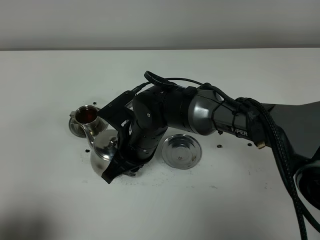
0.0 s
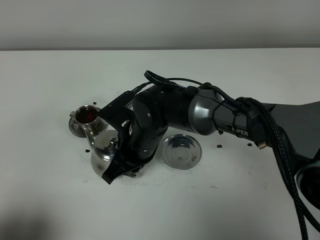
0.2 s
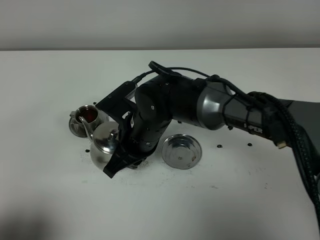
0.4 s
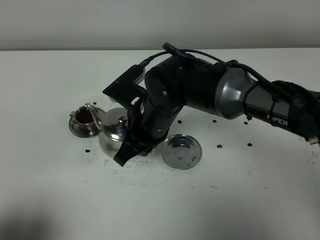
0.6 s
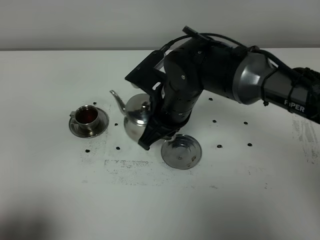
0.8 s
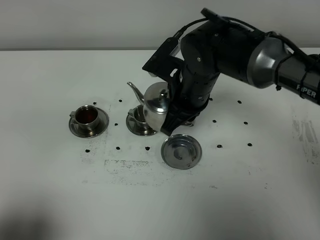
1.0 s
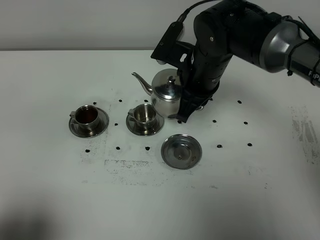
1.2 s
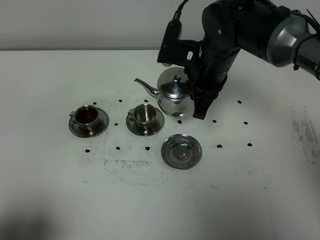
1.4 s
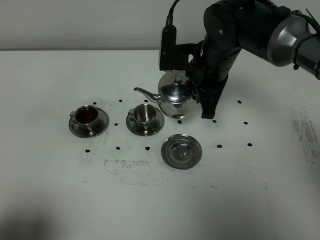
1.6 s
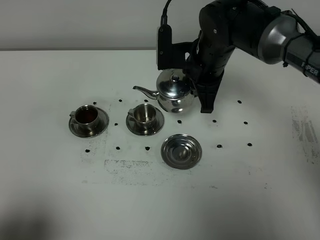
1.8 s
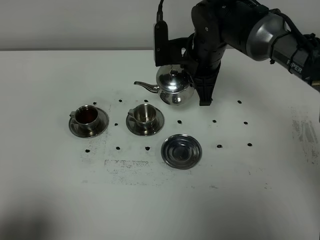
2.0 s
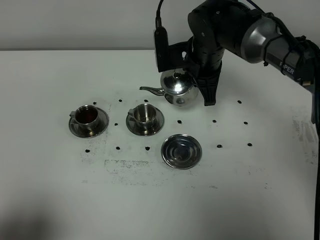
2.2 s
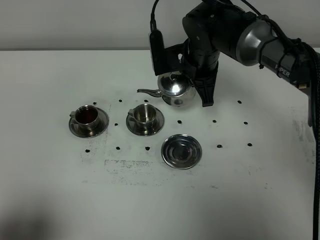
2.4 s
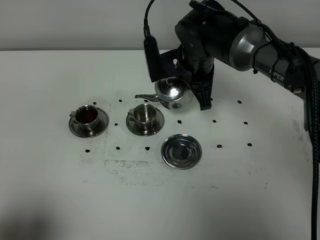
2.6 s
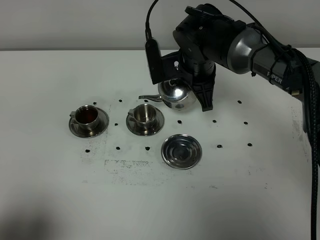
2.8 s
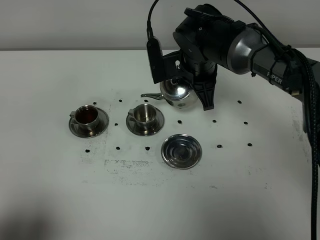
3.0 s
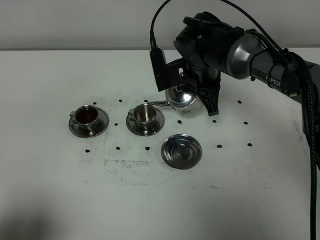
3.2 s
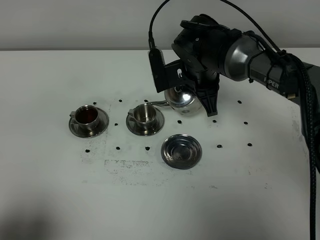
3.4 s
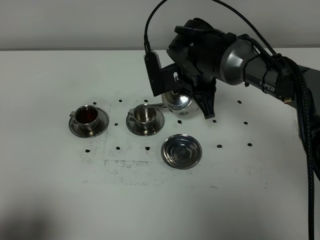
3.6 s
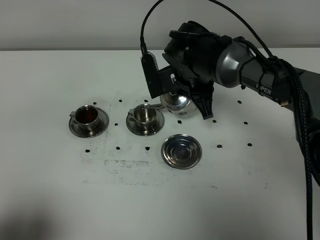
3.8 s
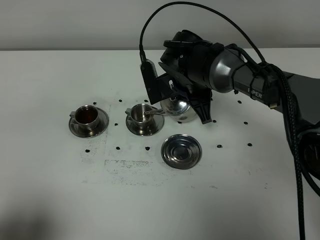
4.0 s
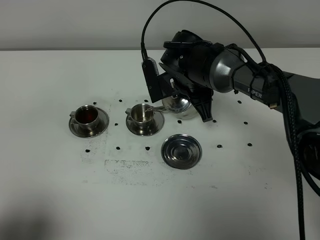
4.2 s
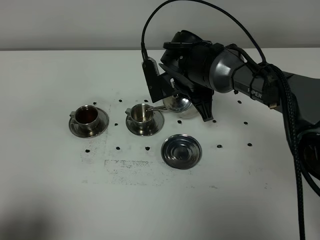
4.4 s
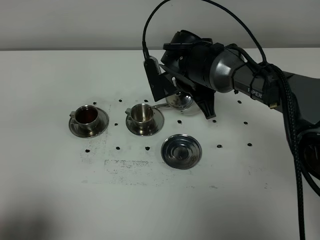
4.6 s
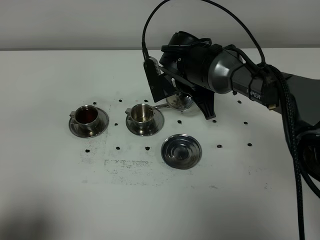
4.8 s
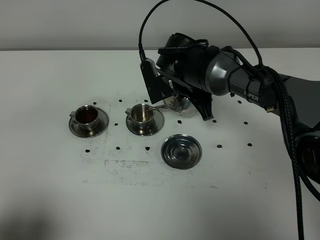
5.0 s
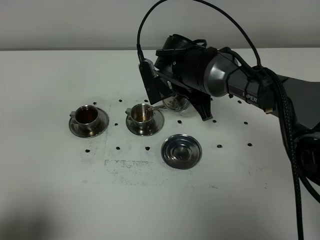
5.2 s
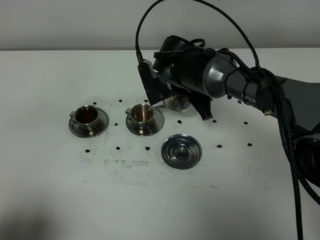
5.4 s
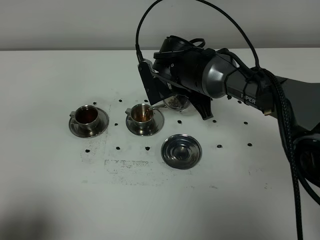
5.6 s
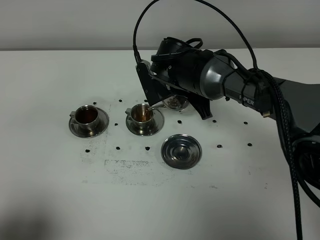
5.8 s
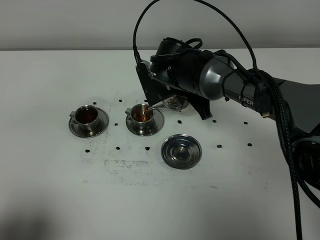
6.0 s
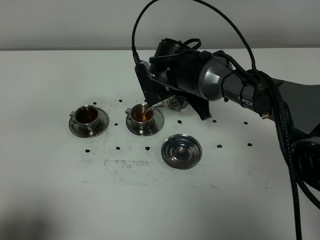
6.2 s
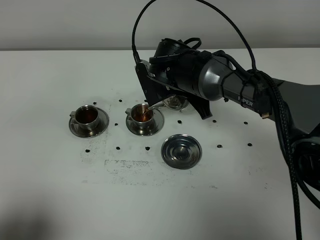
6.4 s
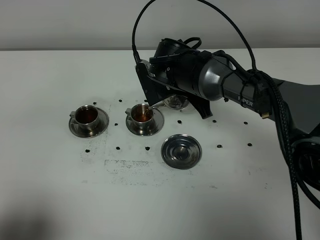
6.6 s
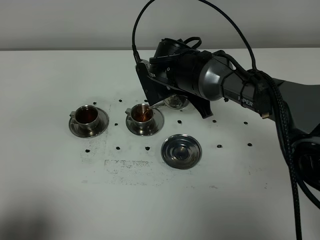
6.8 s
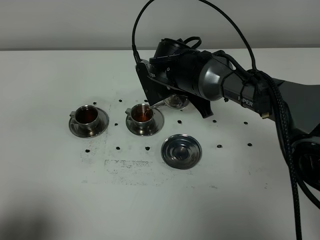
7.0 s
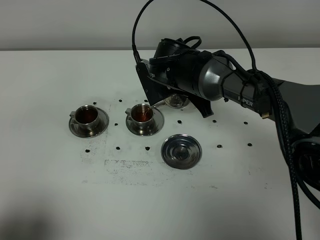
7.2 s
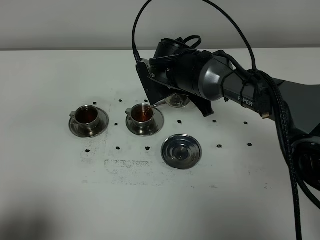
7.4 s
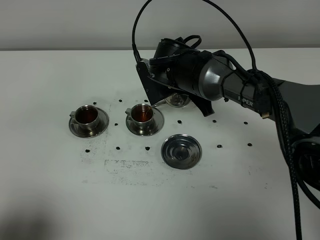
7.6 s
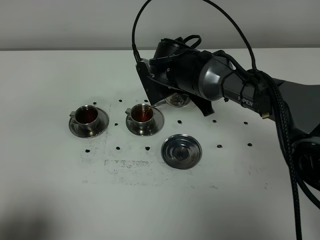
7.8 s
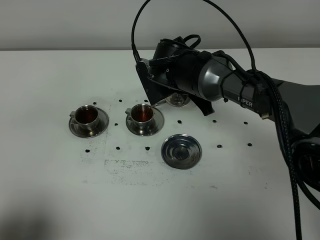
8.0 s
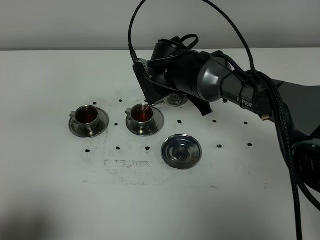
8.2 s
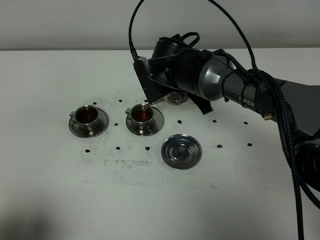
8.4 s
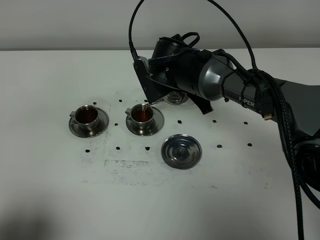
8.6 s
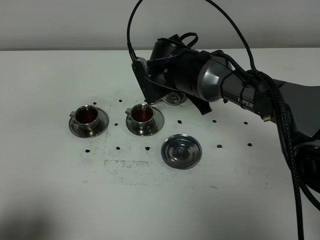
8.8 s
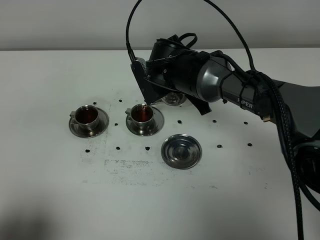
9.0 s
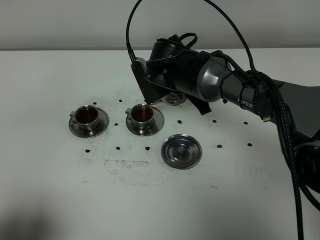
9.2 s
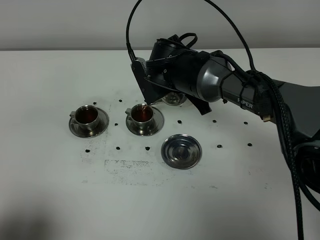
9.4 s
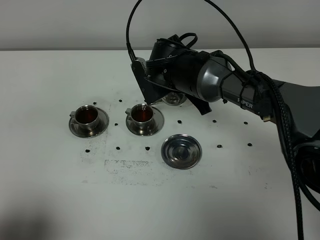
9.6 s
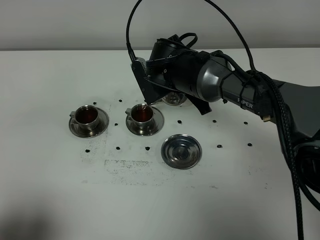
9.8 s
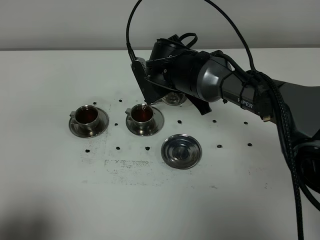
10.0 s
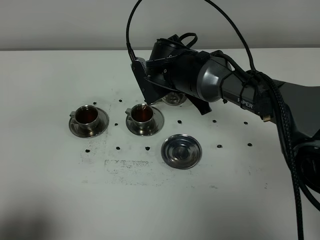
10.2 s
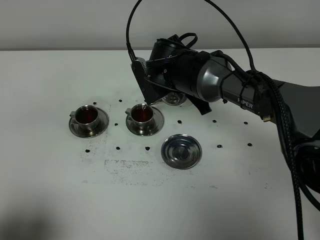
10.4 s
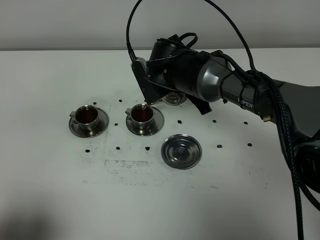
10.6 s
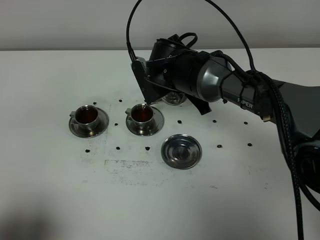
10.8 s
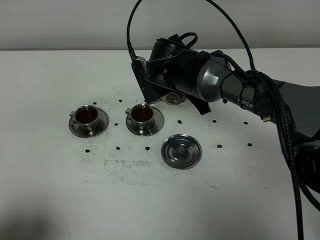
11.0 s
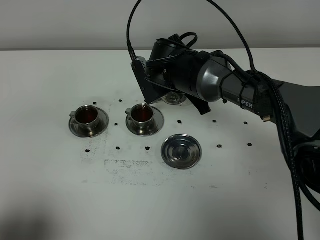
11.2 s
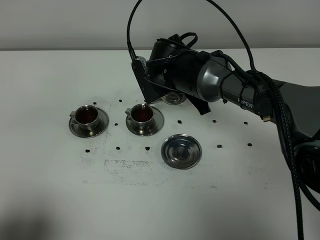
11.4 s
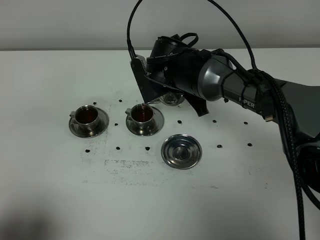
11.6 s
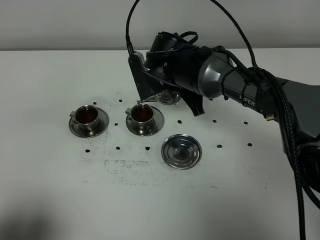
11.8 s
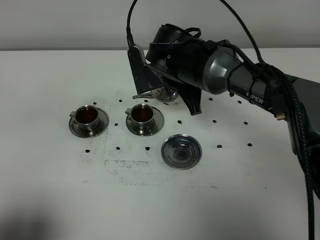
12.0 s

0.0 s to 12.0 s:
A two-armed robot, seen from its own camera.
Task of the whole recording: grasp the stainless steel teapot and pour the tea into the two stainless steel teacups one by one, put the stainless steel teapot back in its original place.
Step, 0.0 to 11.8 s: Pour tea into the teacup with the right gripper.
0.0 to 1.6 s: The right gripper travels to the right, upward and forward by approximately 20 cm.
3.0 to 6.0 s: There are only small adjustments of the grippers.
6.0 to 10.4 s: Both grippers stay put.
10.4 to 12.0 s: The grippers stay close to where they were, moving slightly.

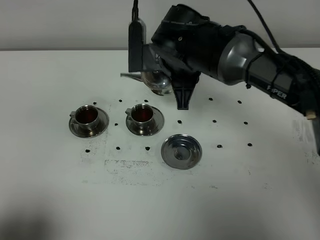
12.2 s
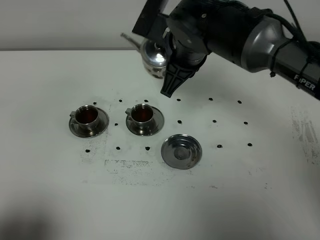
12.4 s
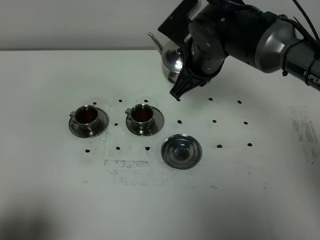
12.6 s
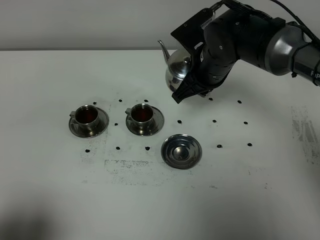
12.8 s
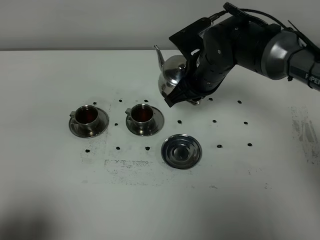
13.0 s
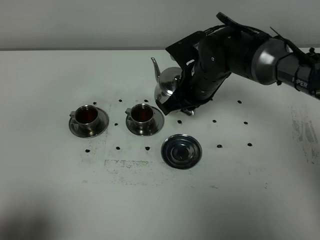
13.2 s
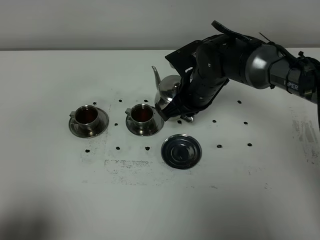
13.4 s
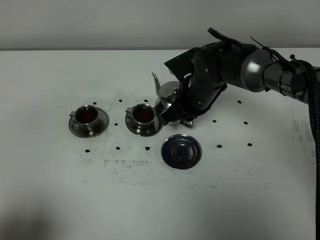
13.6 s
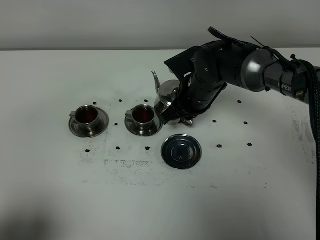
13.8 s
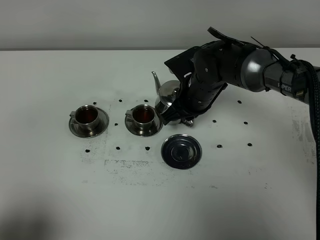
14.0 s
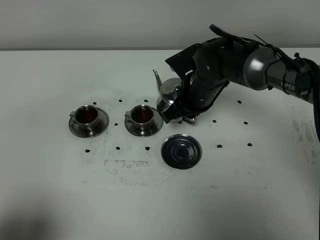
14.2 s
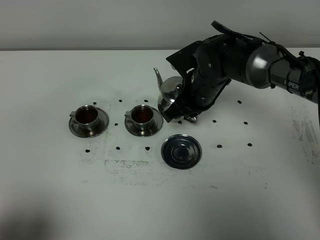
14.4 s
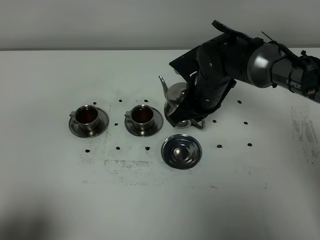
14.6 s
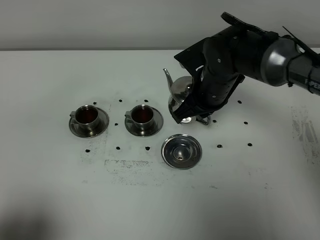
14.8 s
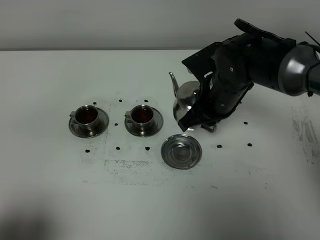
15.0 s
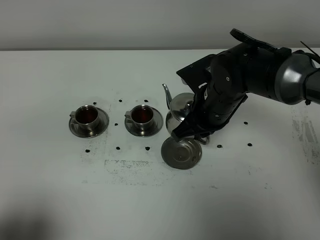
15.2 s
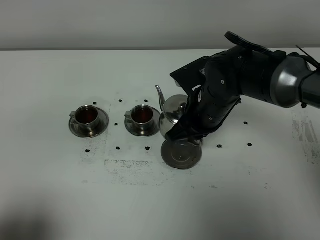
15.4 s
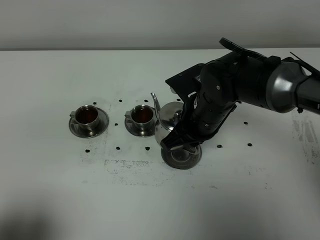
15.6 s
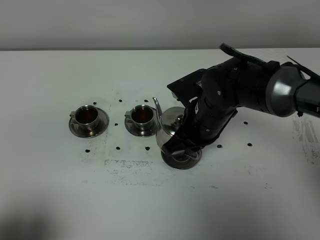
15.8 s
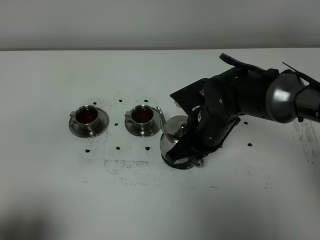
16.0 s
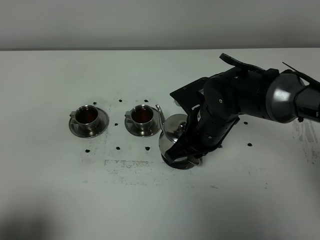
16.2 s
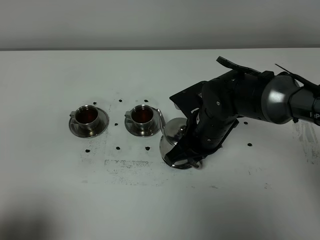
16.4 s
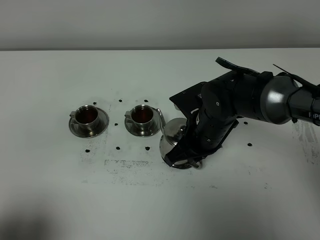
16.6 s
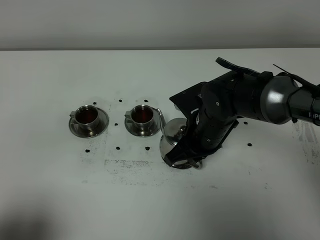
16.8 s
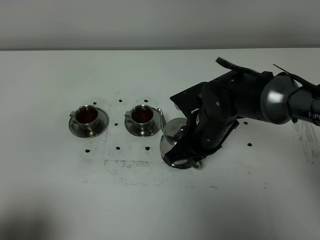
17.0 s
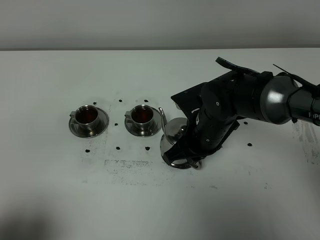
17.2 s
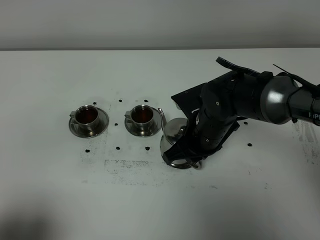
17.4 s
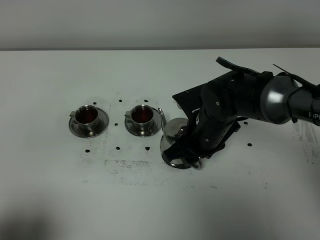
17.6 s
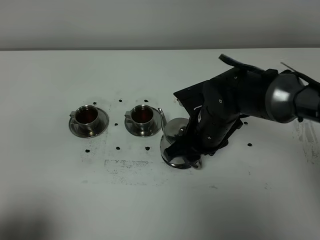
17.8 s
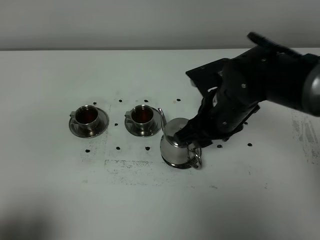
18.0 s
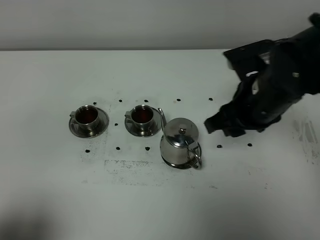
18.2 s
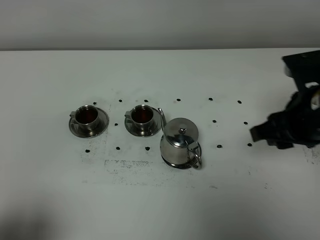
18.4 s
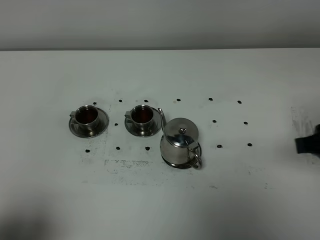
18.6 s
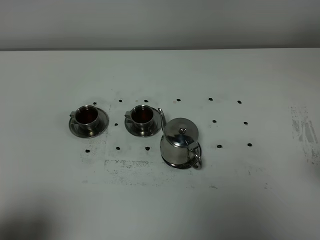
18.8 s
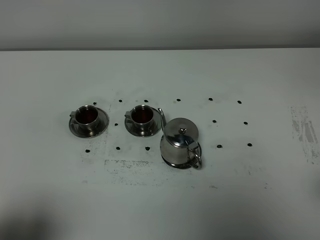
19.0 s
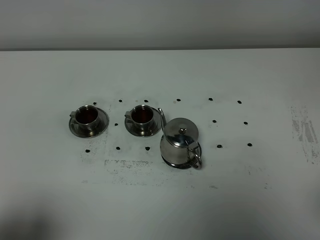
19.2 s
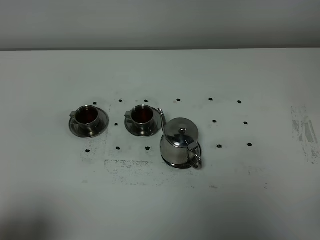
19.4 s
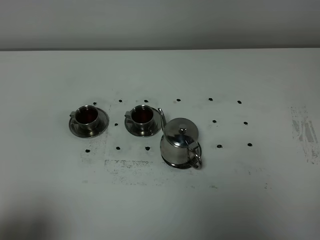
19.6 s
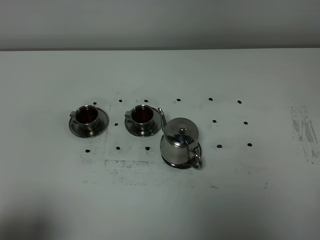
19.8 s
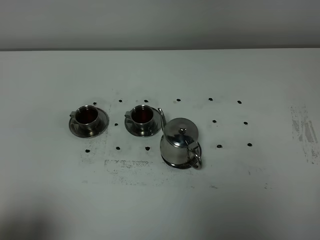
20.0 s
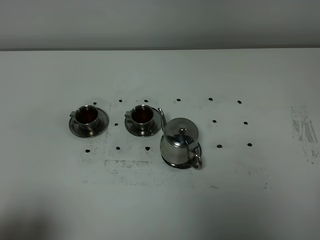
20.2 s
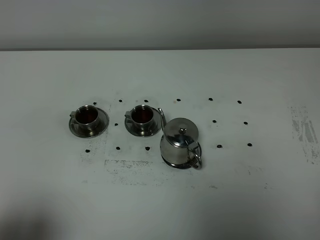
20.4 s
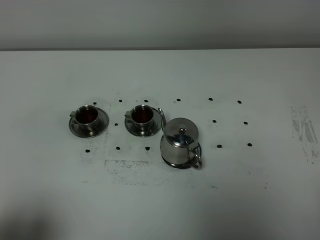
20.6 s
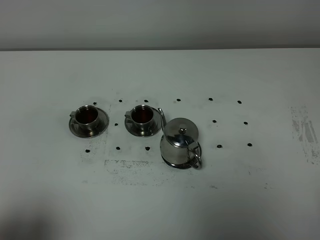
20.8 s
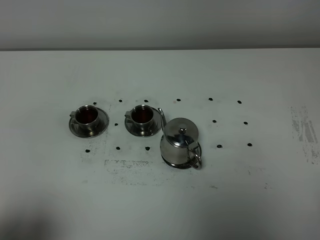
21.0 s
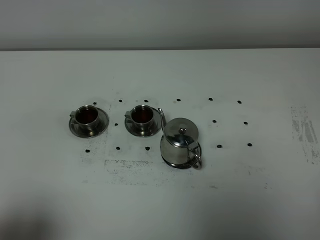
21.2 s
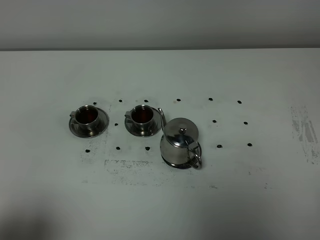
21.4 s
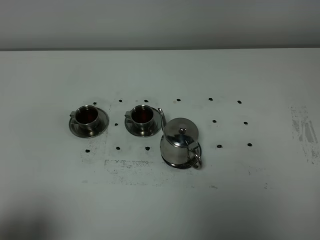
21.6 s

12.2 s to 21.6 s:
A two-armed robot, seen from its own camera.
Task of the whole recording: grasp the stainless steel teapot and pour the tea into the two stainless steel teacups one by one, put the stainless steel teapot back in its original place.
12.2 to 13.8 s: The right gripper goes roughly 10 cm downward.
13.8 to 15.4 s: The right gripper travels backward by about 5 cm.
15.4 to 17.0 s: The grippers stay close to where they were, moving slightly.
17.0 to 18.4 s: The right gripper is displaced to the right, upward and backward by about 20 cm, and opens its fingers.
18.4 to 20.0 s: The right gripper is displaced backward and to the right by roughly 25 cm.
20.0 to 21.6 s: Both grippers stay about where they are.

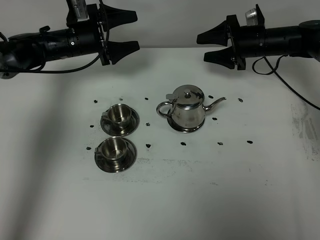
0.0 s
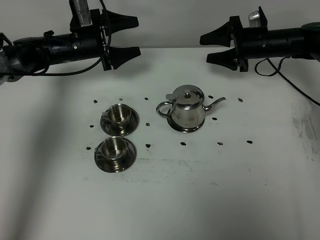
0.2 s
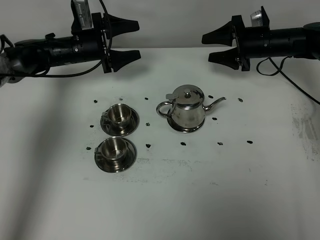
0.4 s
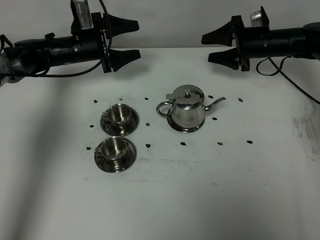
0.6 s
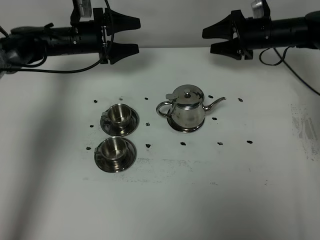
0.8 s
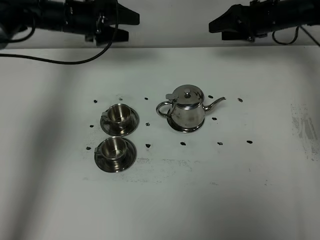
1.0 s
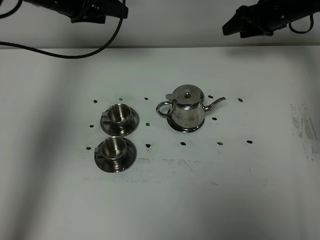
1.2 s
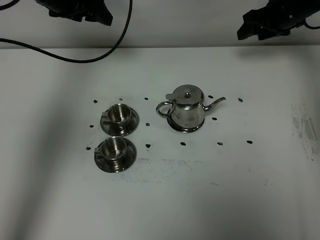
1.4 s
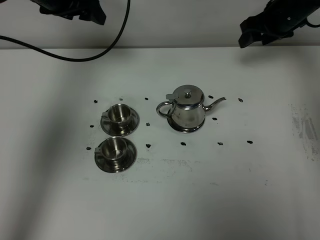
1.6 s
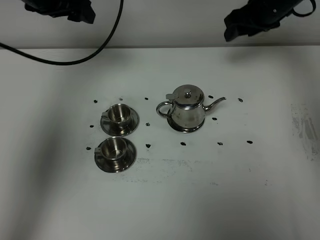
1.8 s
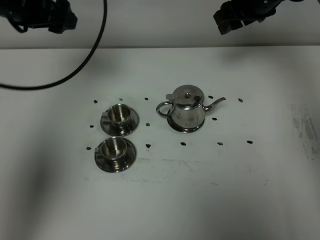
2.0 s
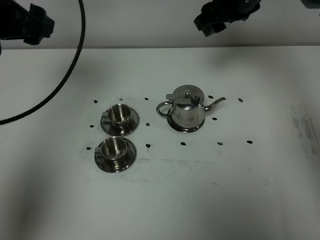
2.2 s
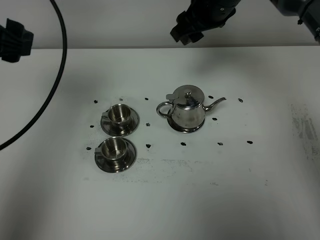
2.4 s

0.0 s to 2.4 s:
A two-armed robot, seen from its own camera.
Task of the whole recording: grasp the stainless steel teapot and pour the tea into the two stainless steel teacups one by one, put the stainless steel teapot back in its original place.
0.0 to 1.2 s: The right gripper shifts some 5 cm upward; the left gripper heads upward, covering roughly 10 cm.
1.2 to 2.4 s: The left gripper goes about 25 cm backward. Meanwhile the right gripper moves to the left, backward and upward, some 20 cm.
